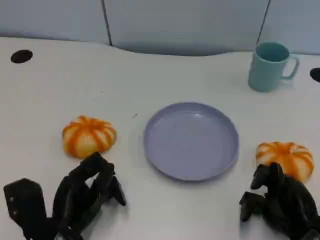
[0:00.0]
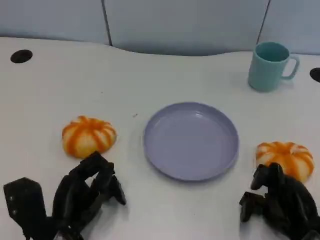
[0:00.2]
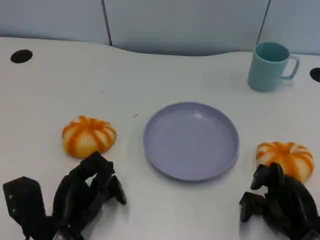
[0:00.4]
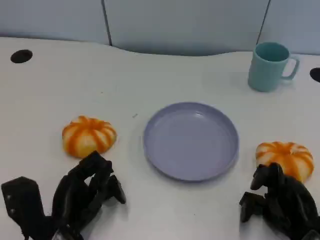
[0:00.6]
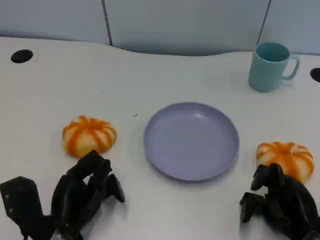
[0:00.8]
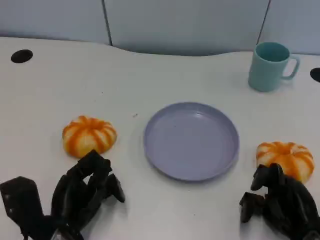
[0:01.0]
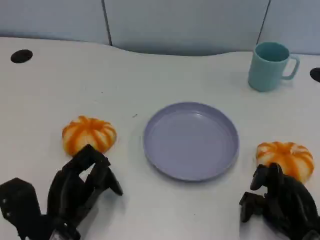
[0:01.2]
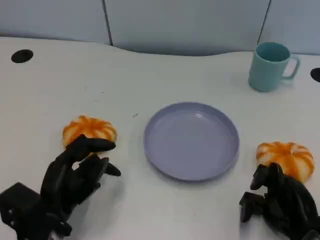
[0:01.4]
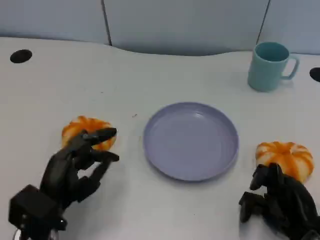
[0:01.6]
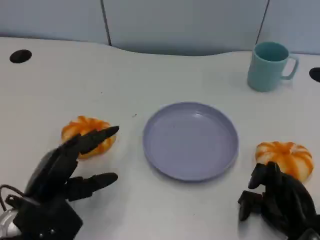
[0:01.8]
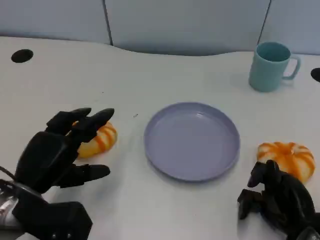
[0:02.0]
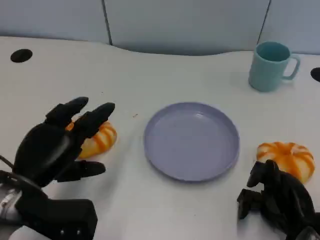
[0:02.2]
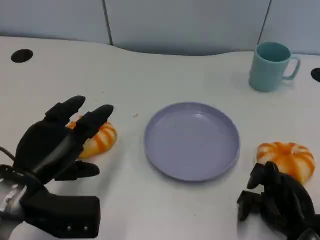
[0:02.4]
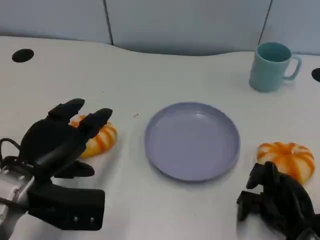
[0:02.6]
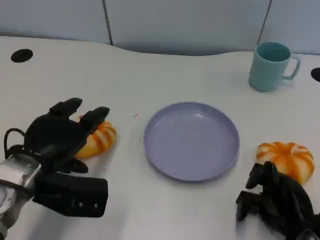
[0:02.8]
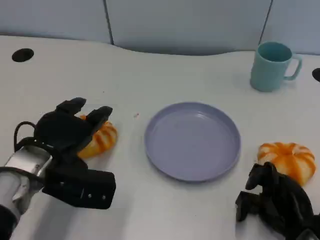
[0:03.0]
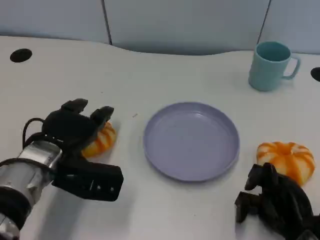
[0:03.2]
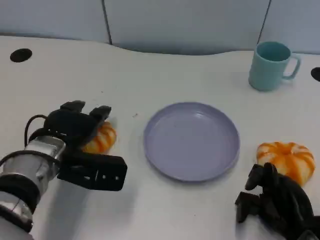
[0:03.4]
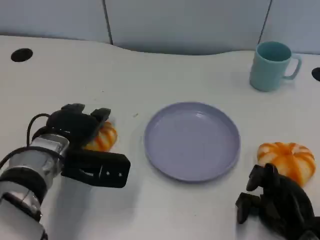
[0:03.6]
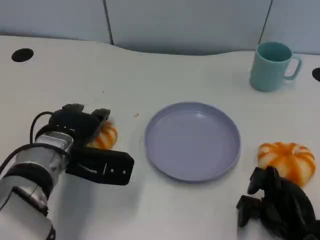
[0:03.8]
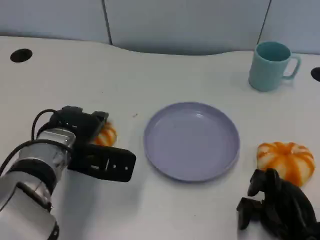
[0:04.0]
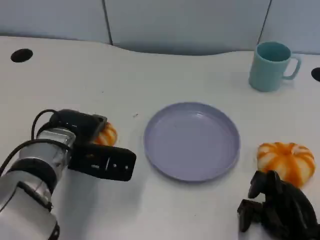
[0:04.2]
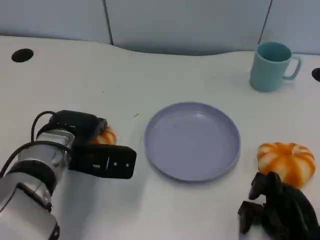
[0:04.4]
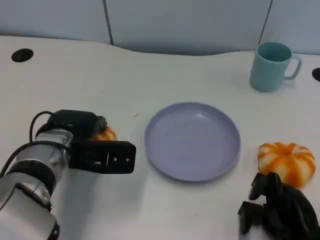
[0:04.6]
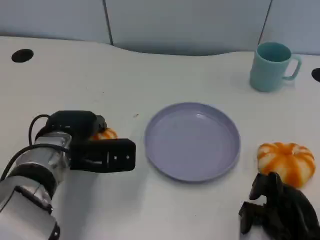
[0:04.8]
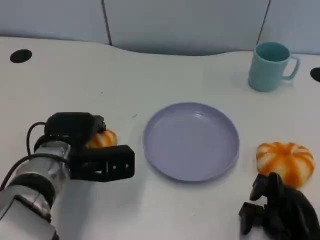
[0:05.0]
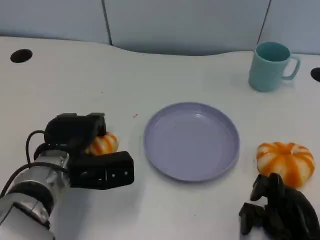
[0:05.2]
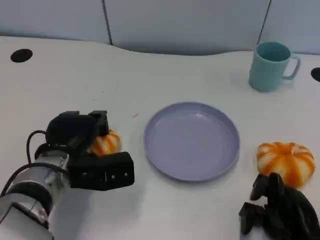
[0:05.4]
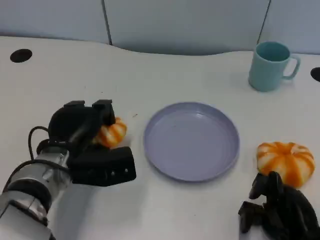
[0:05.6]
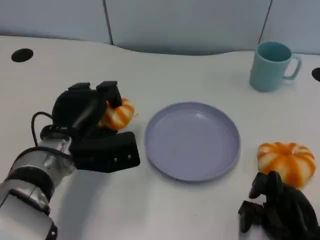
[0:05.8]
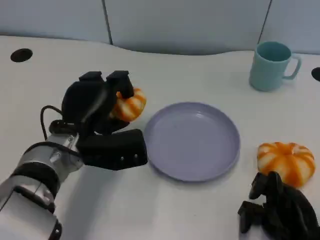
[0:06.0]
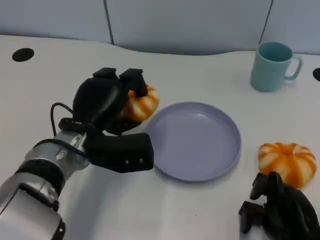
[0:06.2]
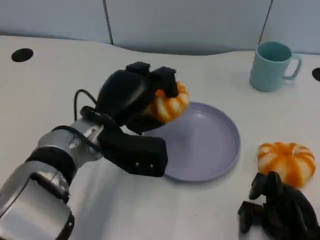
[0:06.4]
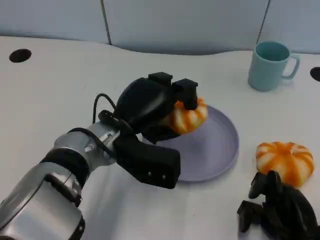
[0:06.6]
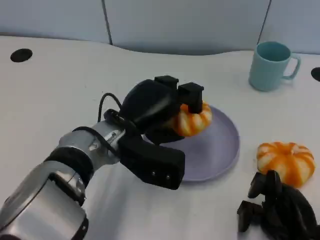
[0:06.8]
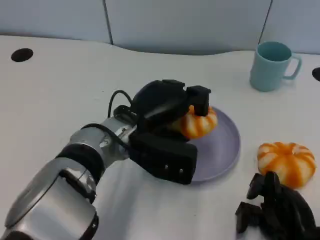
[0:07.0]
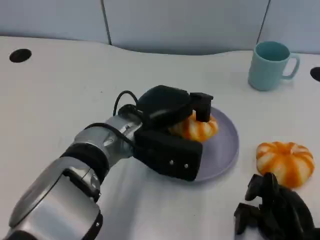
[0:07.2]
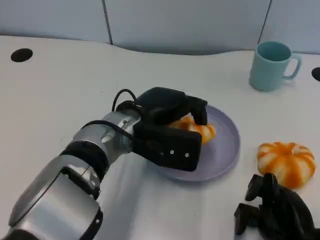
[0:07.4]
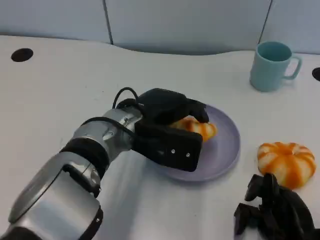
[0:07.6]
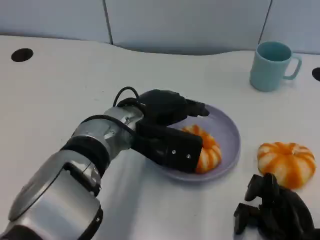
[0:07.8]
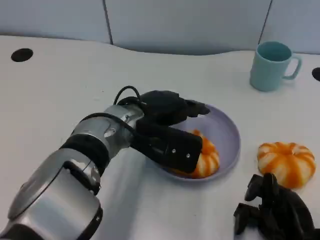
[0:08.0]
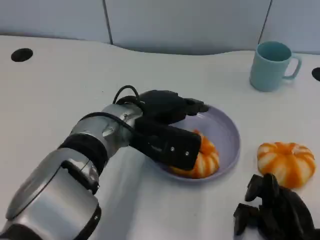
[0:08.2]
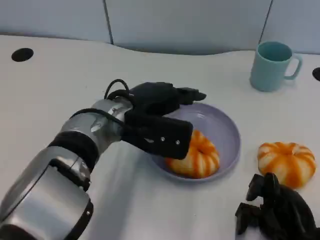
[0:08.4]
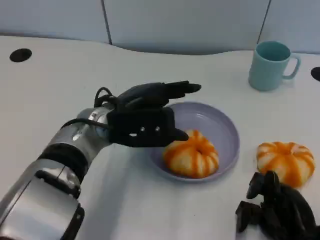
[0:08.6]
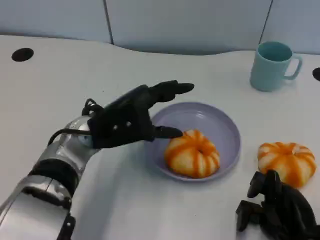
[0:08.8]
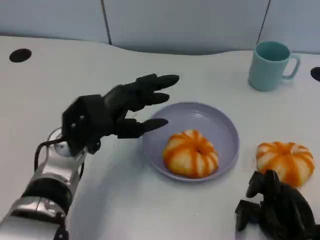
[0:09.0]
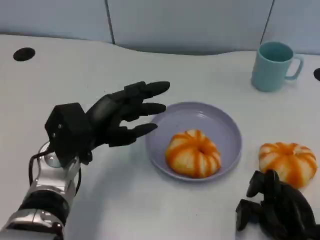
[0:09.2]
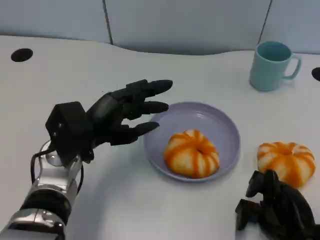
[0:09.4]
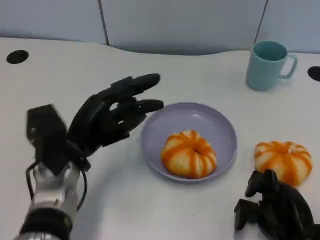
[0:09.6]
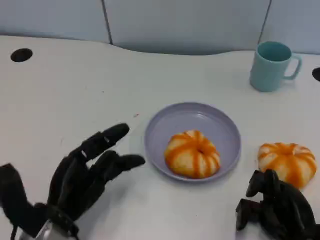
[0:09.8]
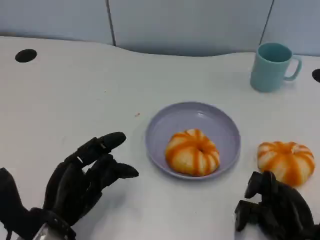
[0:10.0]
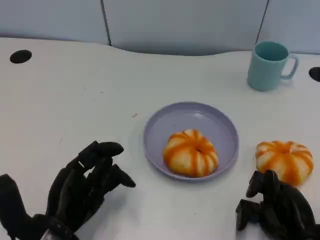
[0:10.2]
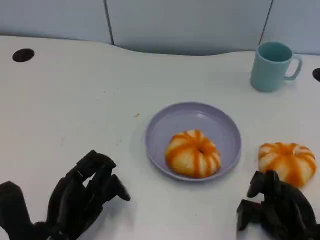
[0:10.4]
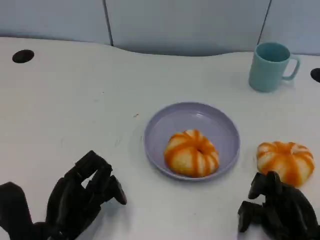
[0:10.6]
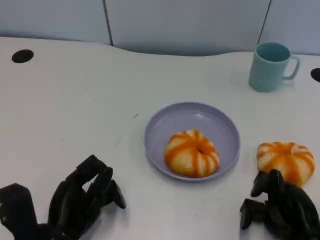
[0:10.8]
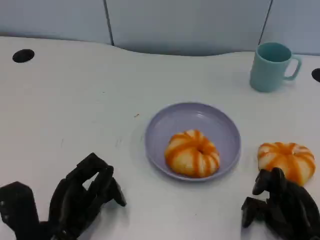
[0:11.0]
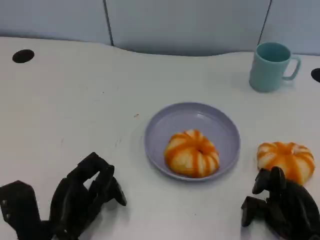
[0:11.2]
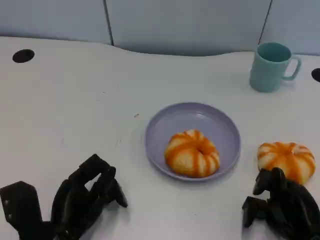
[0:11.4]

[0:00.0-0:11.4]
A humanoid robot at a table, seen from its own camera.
Task of the whole recording: Grasp the bread from the table and place it into the plate.
0:01.4 to 0:02.8: The left hand moves upward and forward, roughly 10 cm.
0:02.8 to 0:04.2: The left hand ends up about 5 cm from where it was.
0:05.6 to 0:07.2: The left hand shifts some 10 cm to the right and upward.
0:08.6 to 0:10.0: The left hand goes roughly 15 cm backward, to the left and downward.
0:10.0 to 0:11.4: The hands move only a little.

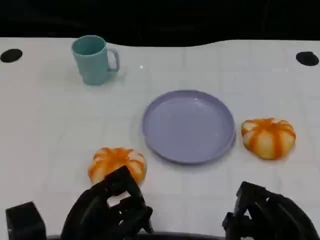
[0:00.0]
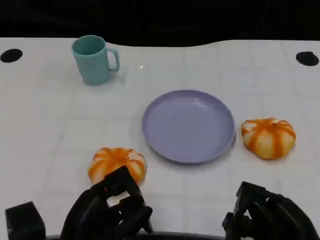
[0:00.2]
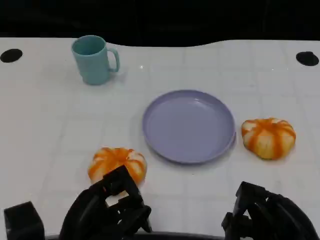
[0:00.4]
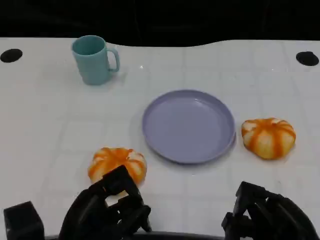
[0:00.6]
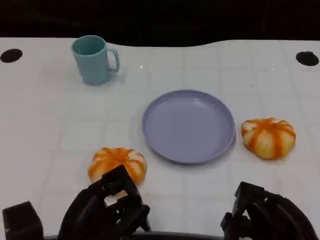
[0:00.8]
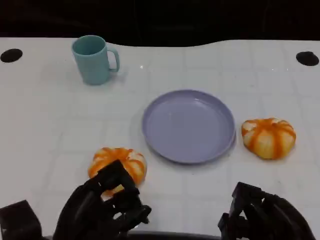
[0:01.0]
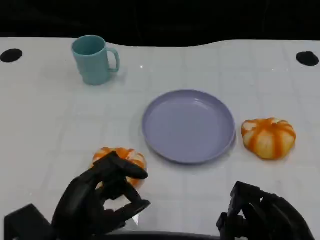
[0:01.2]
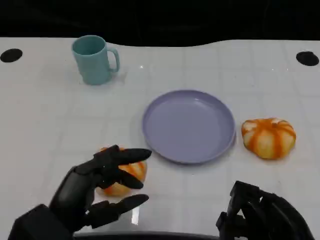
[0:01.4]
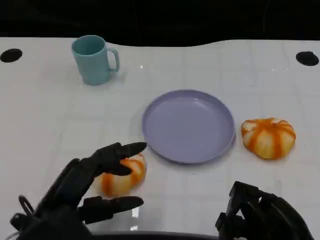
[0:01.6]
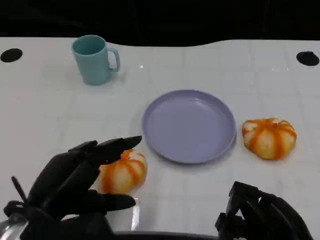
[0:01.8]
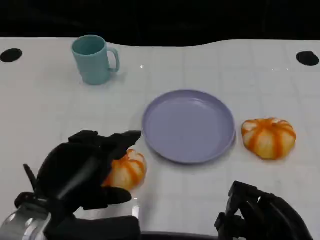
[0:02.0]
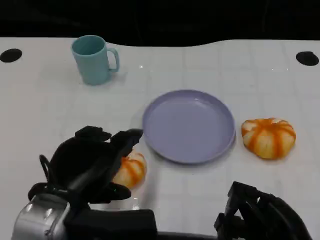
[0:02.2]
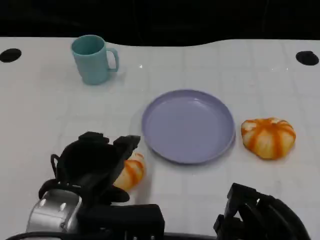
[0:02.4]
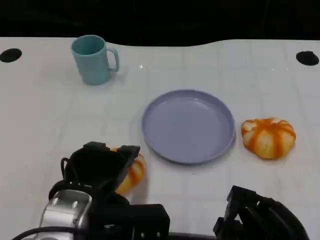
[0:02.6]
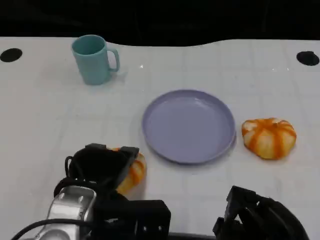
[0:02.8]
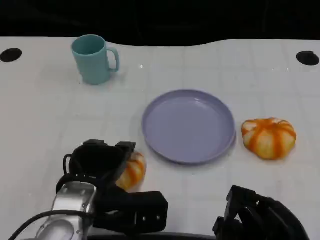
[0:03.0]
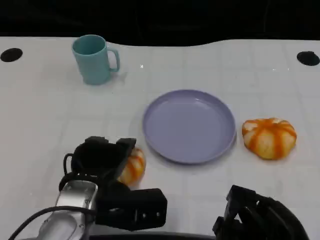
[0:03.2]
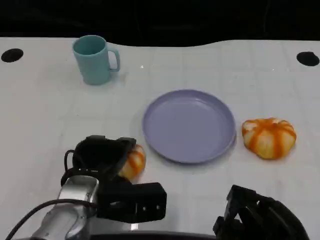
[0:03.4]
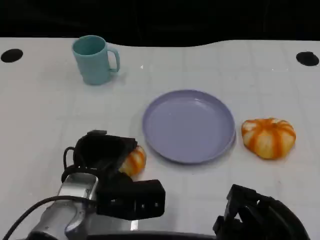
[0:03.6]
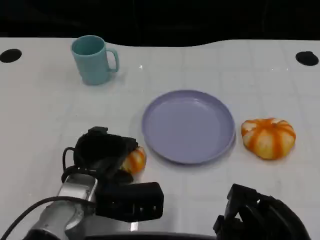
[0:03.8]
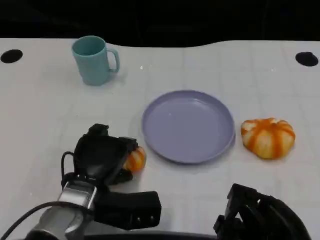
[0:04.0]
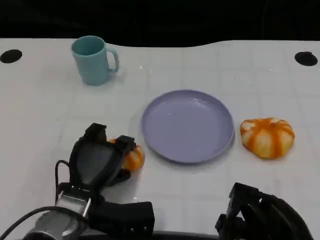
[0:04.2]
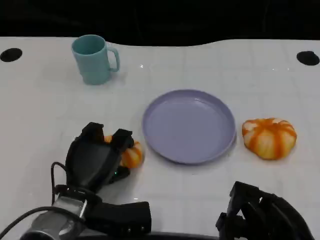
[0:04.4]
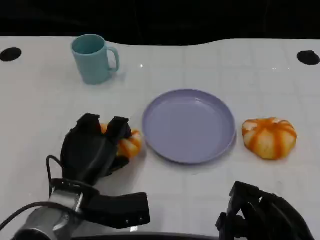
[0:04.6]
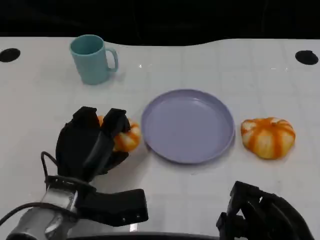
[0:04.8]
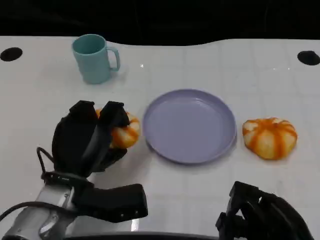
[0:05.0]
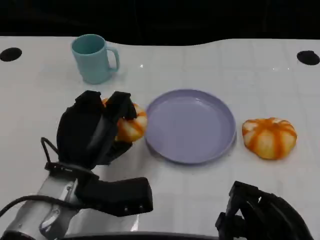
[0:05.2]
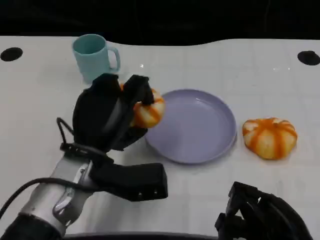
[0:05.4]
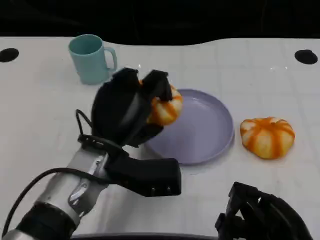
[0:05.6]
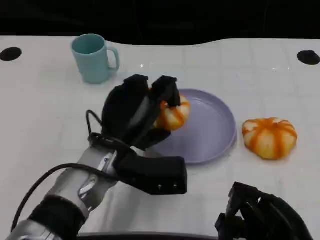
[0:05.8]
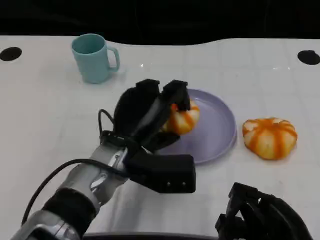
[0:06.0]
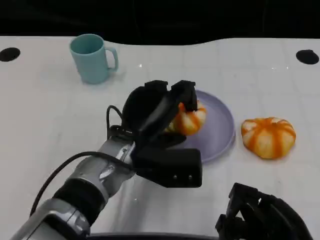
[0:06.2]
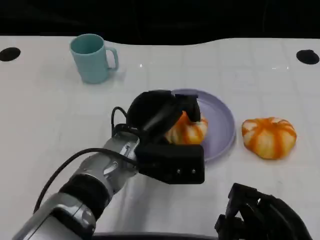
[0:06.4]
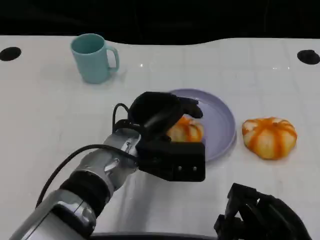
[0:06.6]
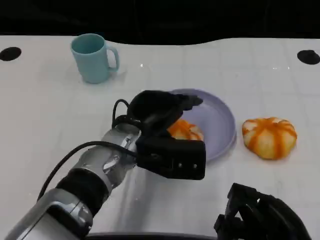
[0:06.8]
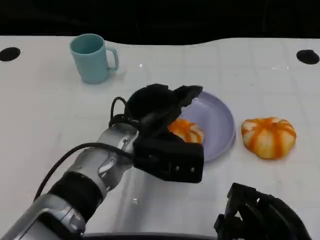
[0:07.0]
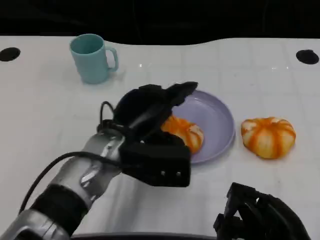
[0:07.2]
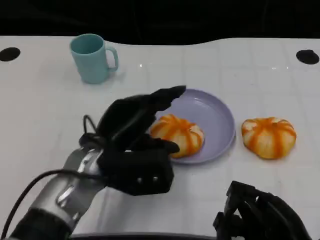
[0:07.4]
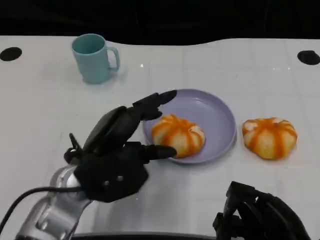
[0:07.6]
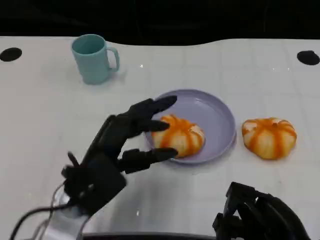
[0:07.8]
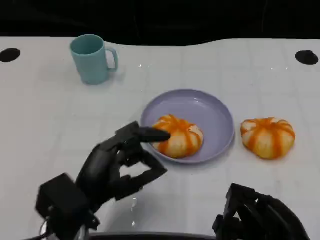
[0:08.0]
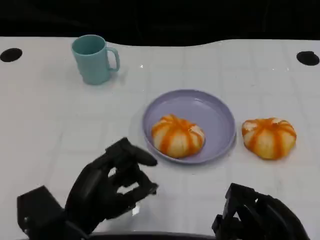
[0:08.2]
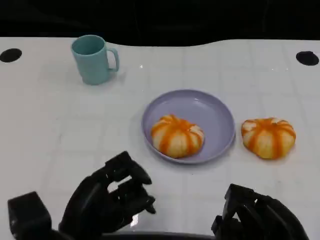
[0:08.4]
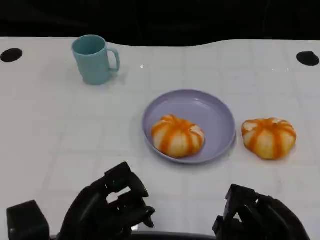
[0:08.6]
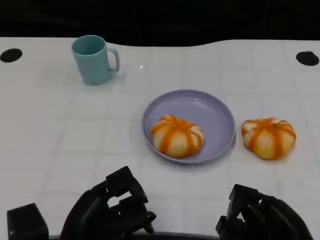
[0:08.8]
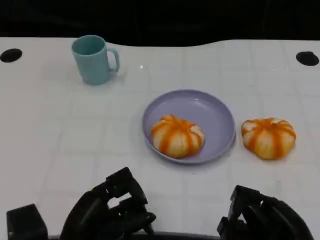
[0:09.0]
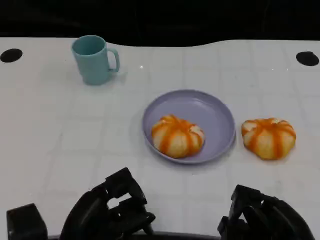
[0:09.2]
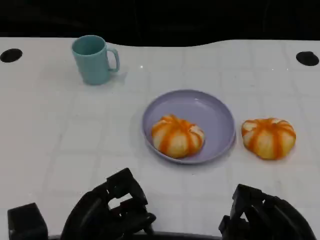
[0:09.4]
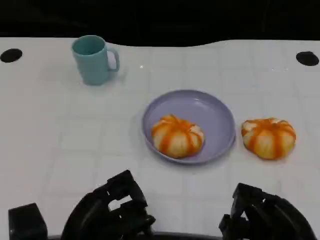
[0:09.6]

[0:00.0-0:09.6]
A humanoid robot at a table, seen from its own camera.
Task of the whole recording: Grasp the bread from the table and place it into the plate.
0:00.0 to 0:01.6: The left hand travels upward by approximately 5 cm.
0:01.6 to 0:03.2: The left hand moves forward and to the right, roughly 10 cm.
0:04.8 to 0:06.4: The left hand is displaced to the right by some 10 cm.
0:06.4 to 0:08.0: The left hand is displaced backward and to the left by some 15 cm.
0:08.0 to 0:09.6: The left hand ends up some 5 cm from where it was.

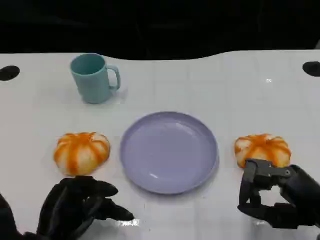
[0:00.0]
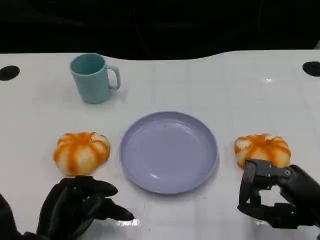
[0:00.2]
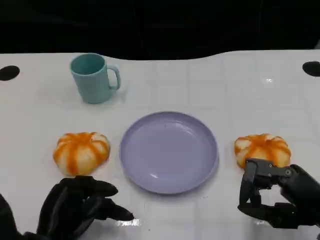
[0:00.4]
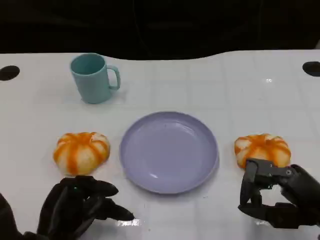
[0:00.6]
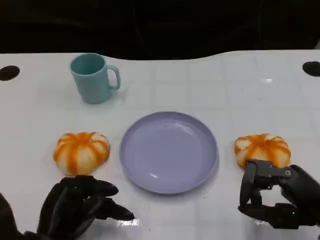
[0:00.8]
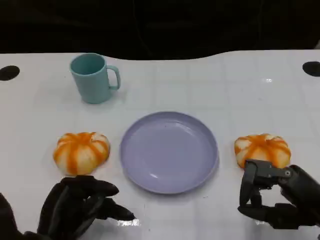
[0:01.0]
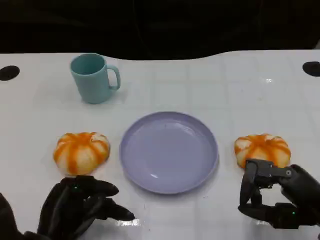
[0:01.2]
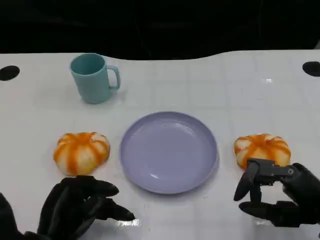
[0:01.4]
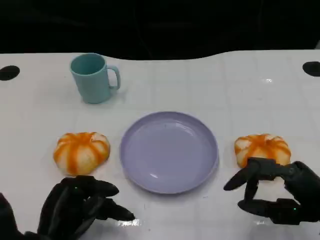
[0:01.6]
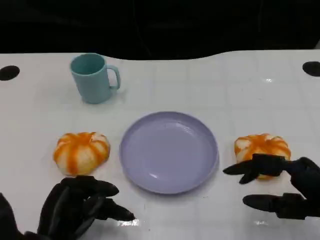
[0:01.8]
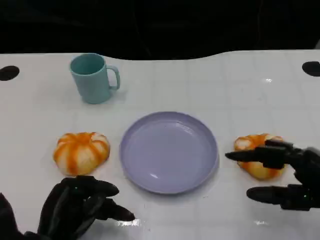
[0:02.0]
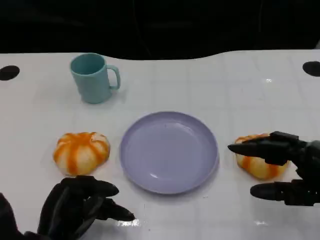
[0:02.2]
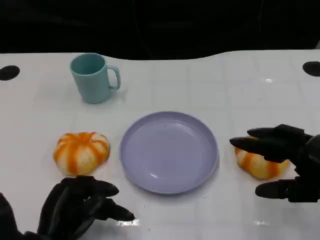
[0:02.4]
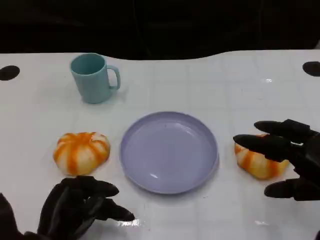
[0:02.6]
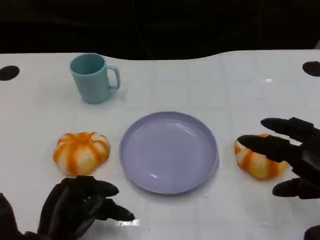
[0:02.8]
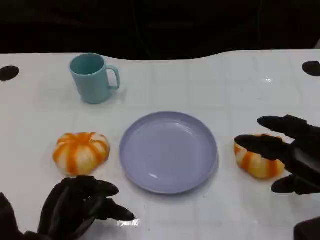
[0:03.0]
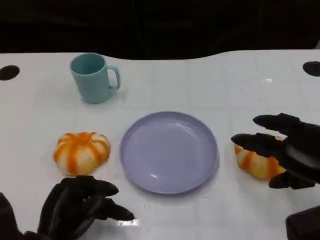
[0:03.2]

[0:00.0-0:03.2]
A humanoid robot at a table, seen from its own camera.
Task of the whole recording: Grasp the bread from the table and place it into the plate.
0:00.0 to 0:01.6: The hands stay close to where they were, moving slightly.
0:01.6 to 0:03.2: The right hand changes place by about 5 cm.
